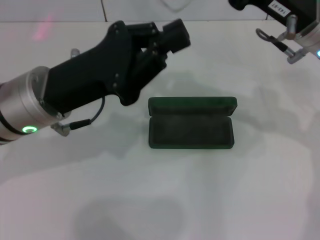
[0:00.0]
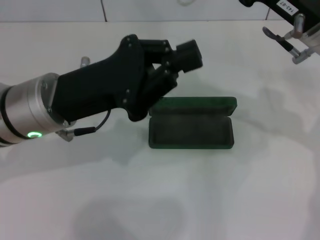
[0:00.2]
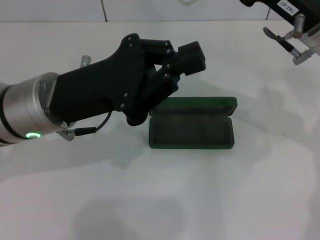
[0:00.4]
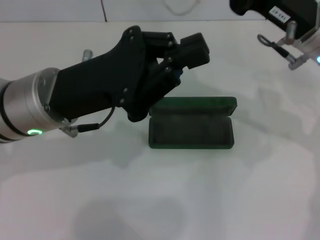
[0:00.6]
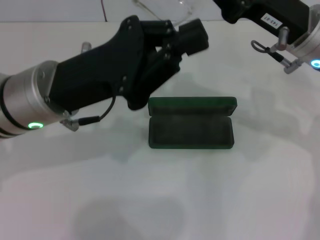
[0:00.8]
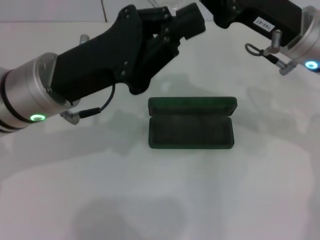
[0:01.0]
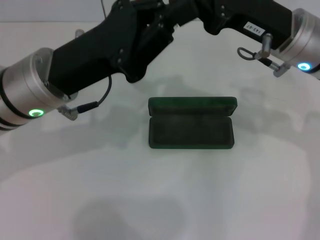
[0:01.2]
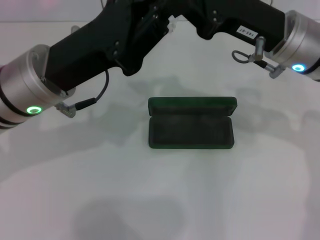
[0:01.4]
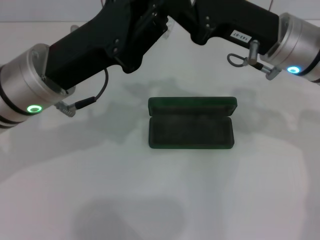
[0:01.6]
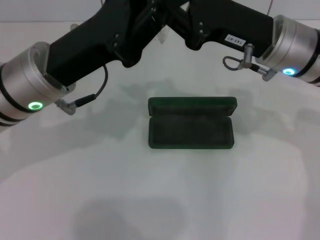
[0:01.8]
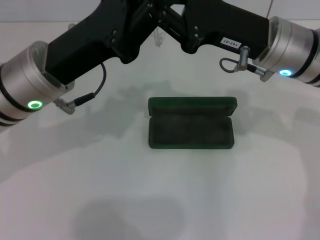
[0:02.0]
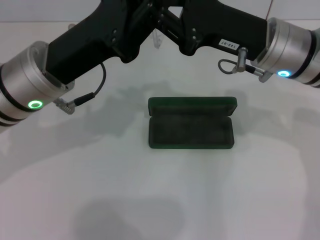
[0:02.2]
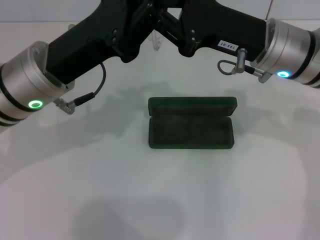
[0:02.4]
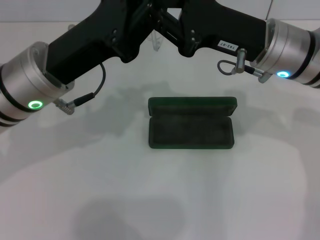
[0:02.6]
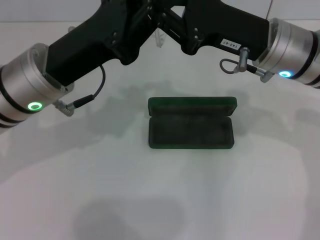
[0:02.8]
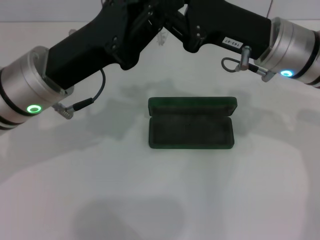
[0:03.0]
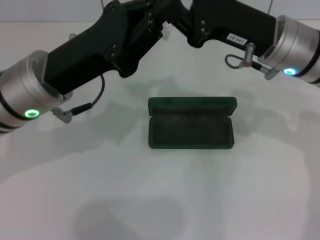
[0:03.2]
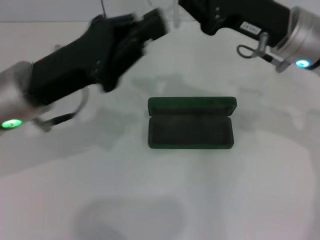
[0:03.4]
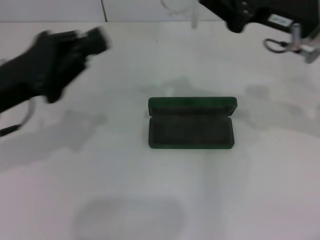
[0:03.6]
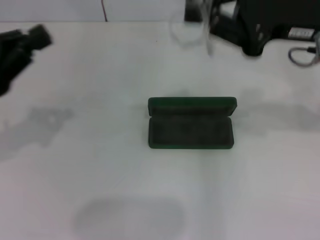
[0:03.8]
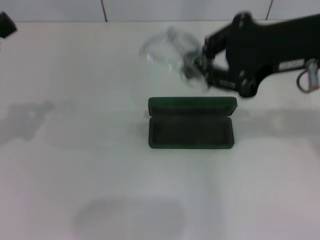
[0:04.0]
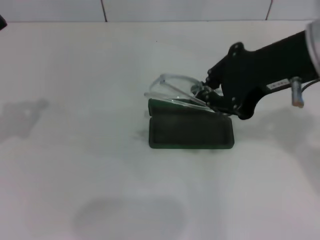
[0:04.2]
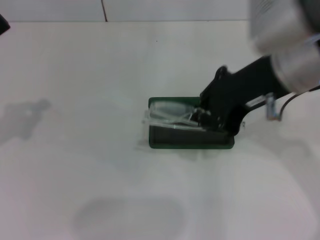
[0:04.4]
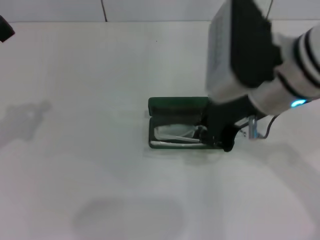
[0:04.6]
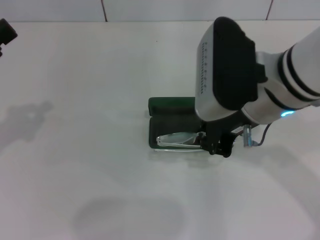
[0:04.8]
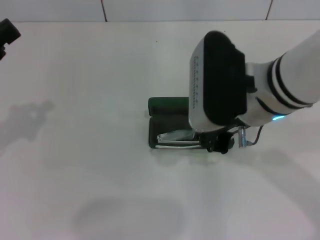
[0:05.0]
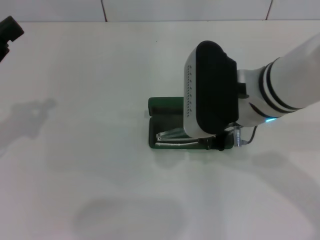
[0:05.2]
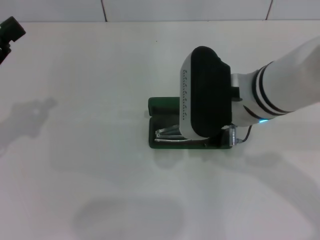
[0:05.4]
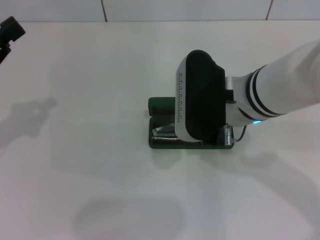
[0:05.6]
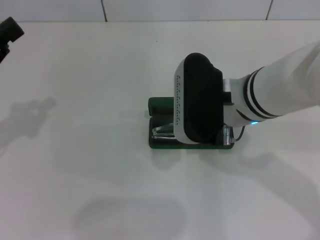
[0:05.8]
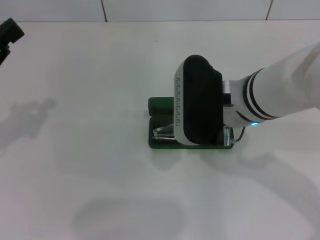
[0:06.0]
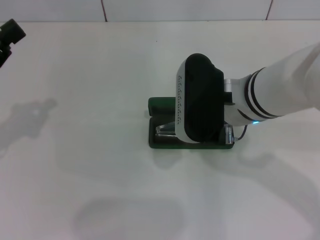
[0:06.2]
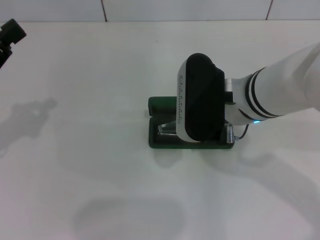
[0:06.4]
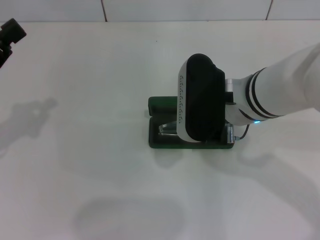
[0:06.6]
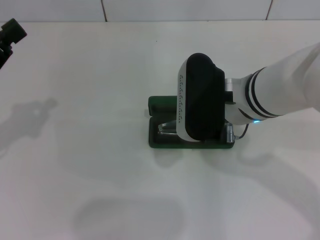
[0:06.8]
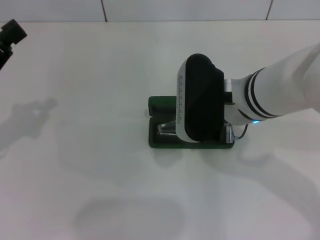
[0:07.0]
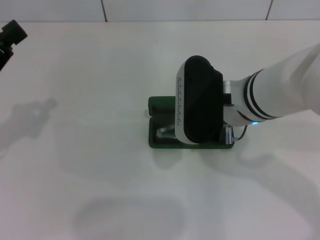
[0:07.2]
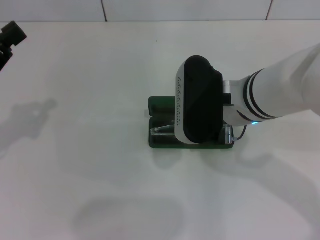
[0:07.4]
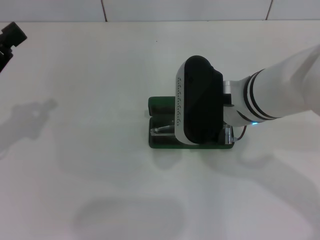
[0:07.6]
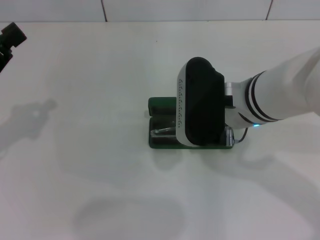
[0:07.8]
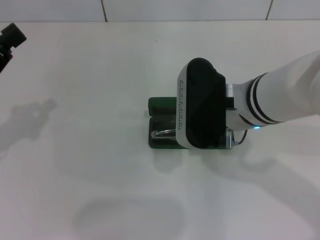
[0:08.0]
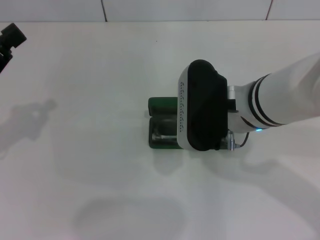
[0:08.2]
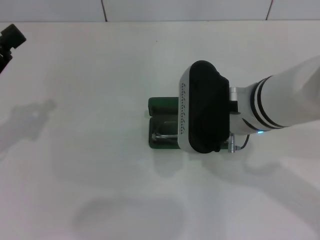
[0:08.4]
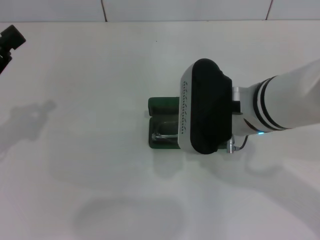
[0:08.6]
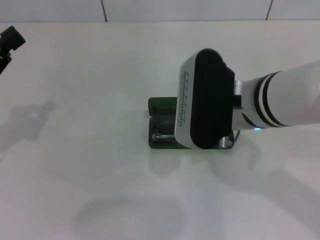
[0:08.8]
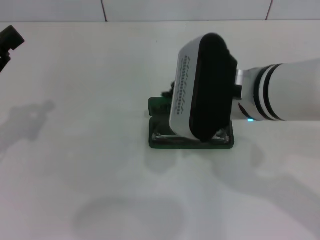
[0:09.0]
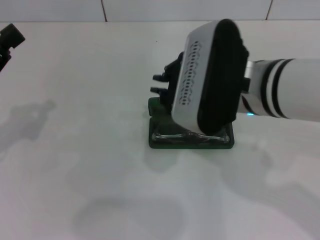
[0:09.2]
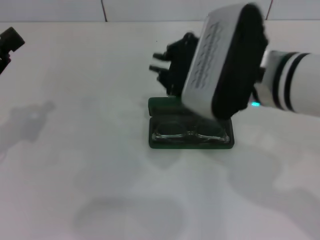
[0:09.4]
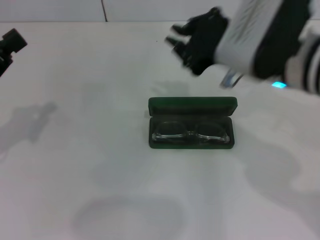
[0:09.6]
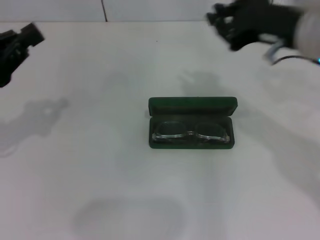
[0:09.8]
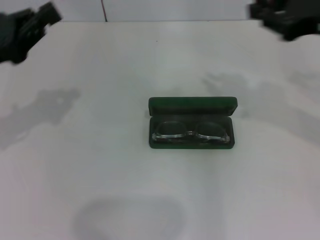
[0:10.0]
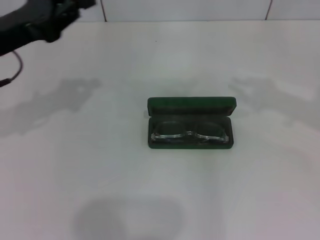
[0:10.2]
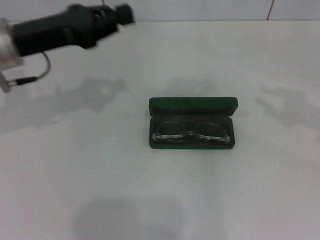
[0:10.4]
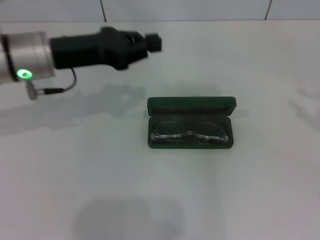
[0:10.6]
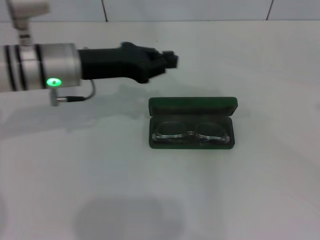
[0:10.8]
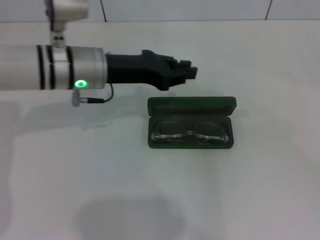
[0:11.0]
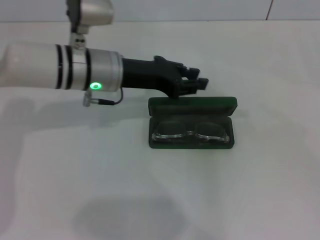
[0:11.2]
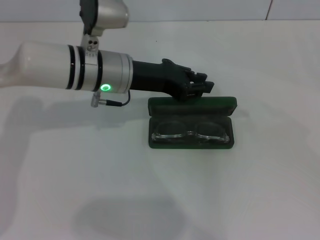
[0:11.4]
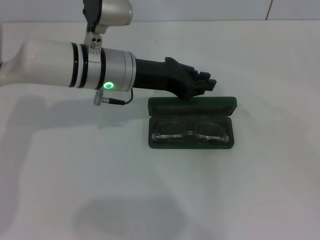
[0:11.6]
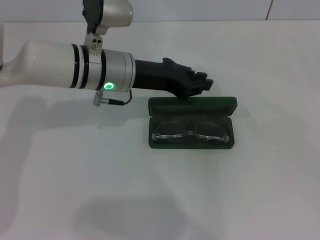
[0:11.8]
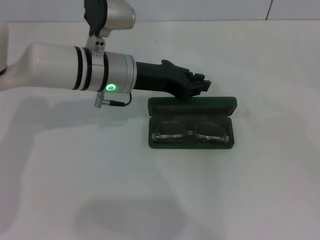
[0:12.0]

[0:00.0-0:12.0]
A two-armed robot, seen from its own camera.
Step, 0.0 to 2.0 s: Fold the frame with your left hand.
Step, 2.2 to 8.4 s: Put the glasses into the case with your right hand.
1.6 to 3.0 s: Both grippers stay about where they are.
3.0 to 4.4 s: The right gripper is displaced upward and backward by about 10 cm, while the left gripper moves to the left, approximately 15 cm.
4.4 to 6.0 s: The right gripper goes about 10 cm downward and to the left.
6.0 to 7.6 s: Both grippers stay about where they are.
7.6 to 9.0 s: There are only small adjustments of the grippers.
9.0 to 10.4 s: The right gripper moves to the right, approximately 30 cm. The left gripper heads forward and to the right, covering about 15 cm.
10.4 to 12.0 s: The left gripper goes some 15 cm to the right and downward. The right gripper heads downward and to the right, covering approximately 10 cm, and opens its fingers.

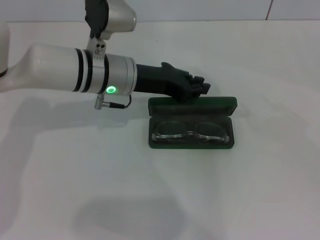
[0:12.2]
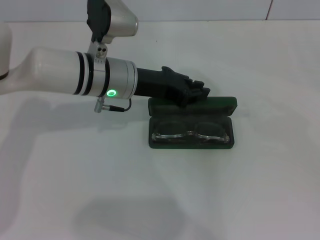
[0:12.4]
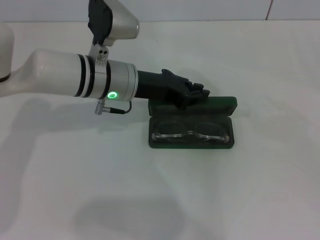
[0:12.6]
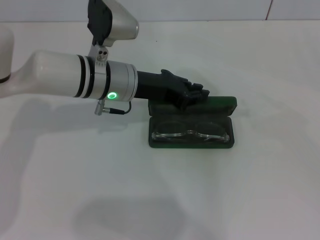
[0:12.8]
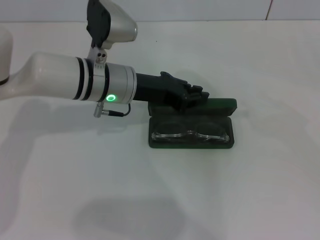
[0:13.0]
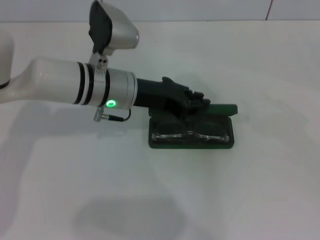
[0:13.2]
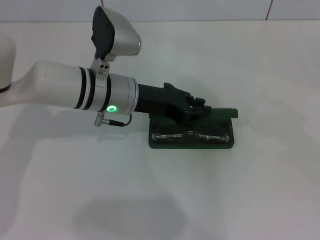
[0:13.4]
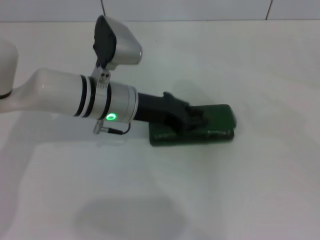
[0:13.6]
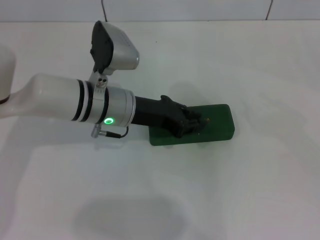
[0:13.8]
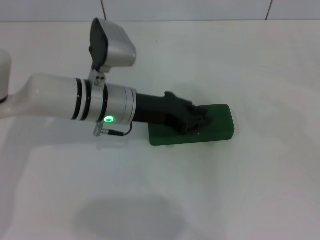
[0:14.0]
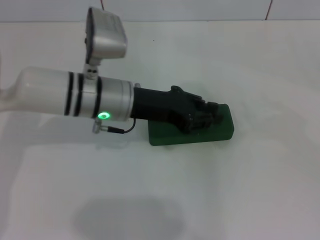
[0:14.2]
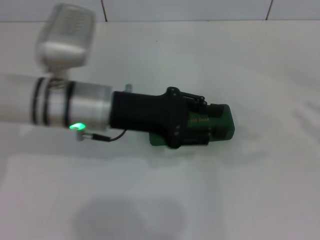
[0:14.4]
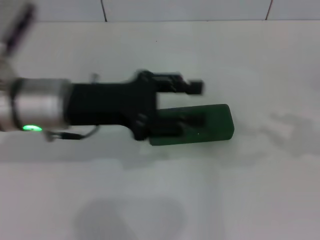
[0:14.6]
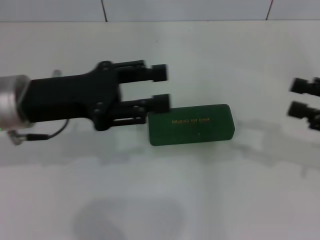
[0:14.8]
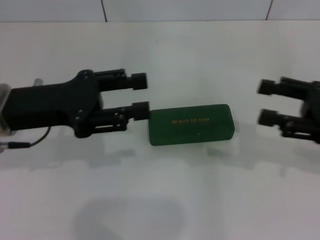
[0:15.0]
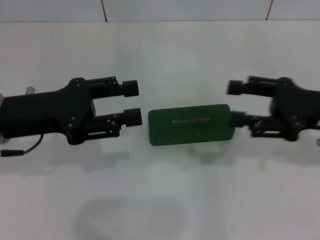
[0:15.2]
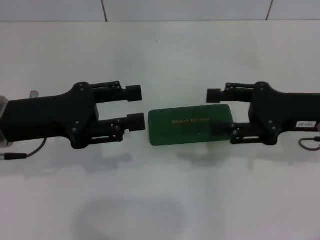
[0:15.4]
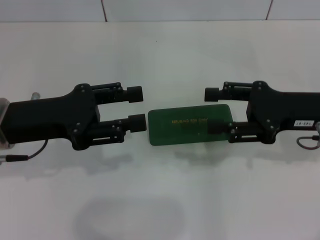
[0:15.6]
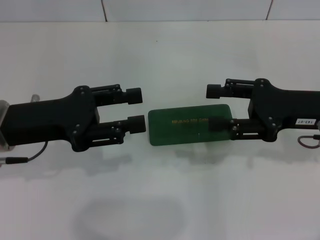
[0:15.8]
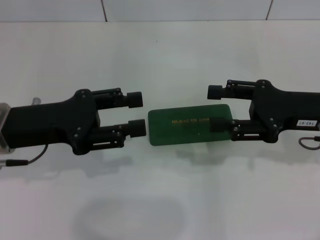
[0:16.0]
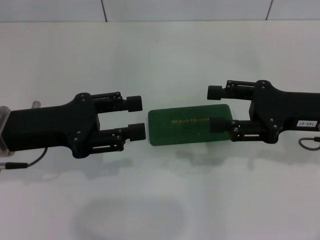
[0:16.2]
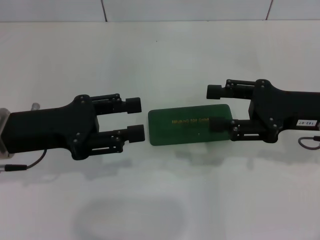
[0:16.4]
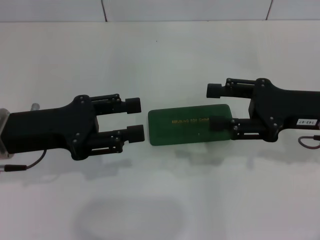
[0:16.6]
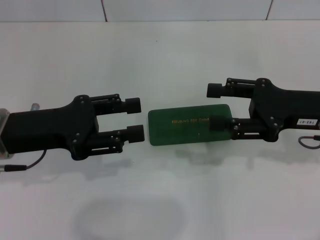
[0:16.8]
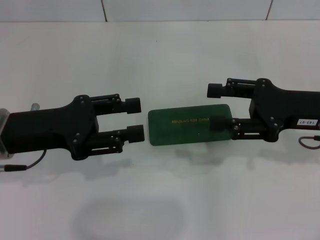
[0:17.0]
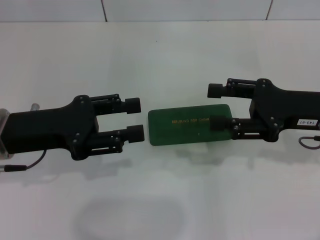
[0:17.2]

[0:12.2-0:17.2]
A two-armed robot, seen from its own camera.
12.2 to 13.8 s: The grippers stay close to where they were, moving slightly.
13.8 to 15.6 s: The left gripper heads to the left, backward and upward, covering some 15 cm, and opens. Meanwhile the right gripper is displaced to the left by roughly 20 cm, and opens.
15.6 to 17.2 s: Both grippers stay about where they are.

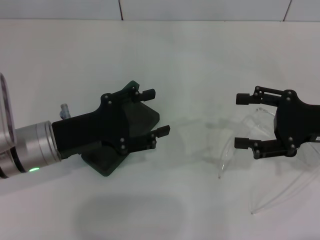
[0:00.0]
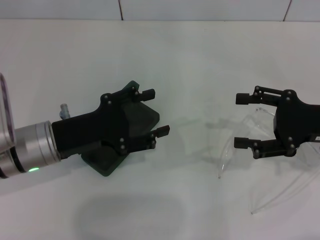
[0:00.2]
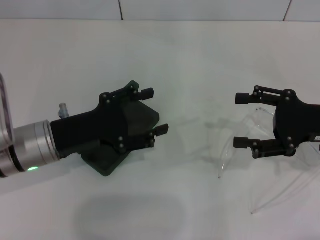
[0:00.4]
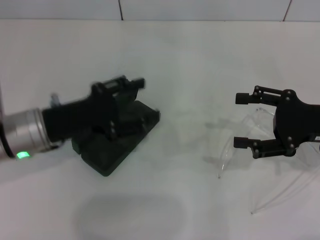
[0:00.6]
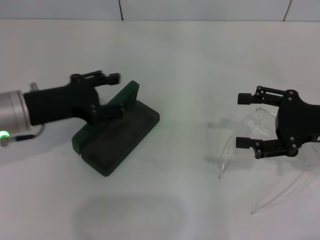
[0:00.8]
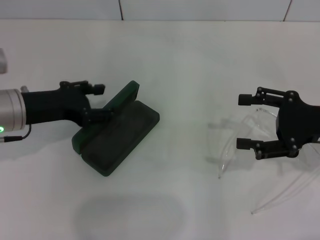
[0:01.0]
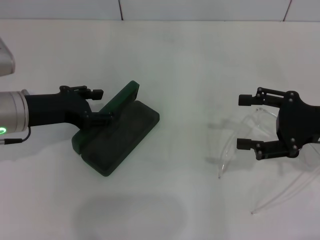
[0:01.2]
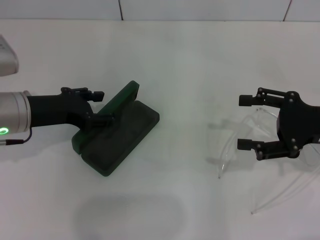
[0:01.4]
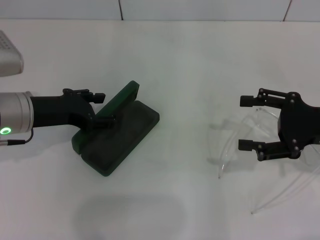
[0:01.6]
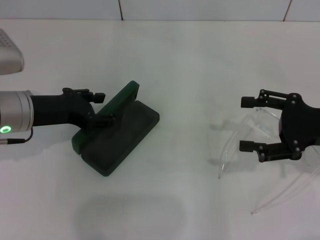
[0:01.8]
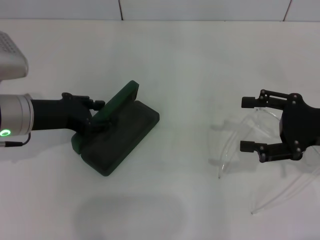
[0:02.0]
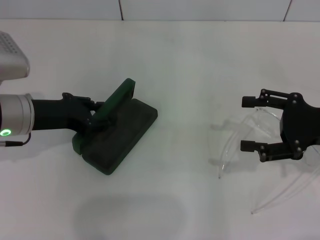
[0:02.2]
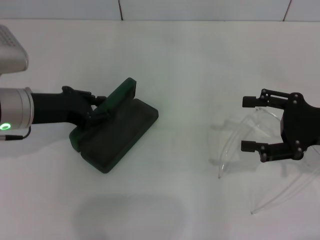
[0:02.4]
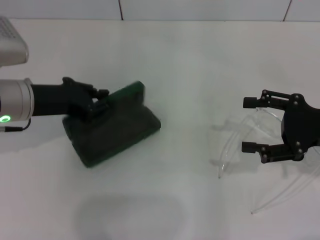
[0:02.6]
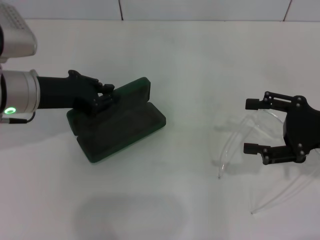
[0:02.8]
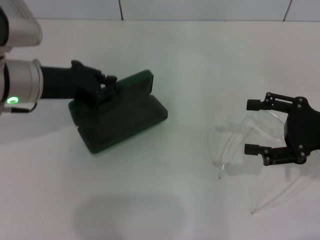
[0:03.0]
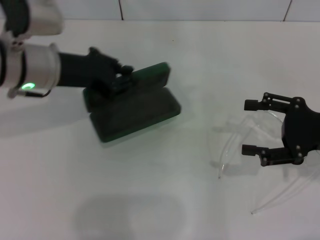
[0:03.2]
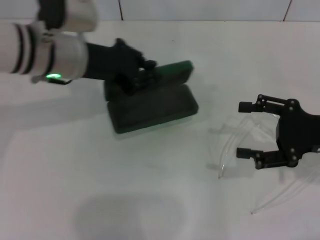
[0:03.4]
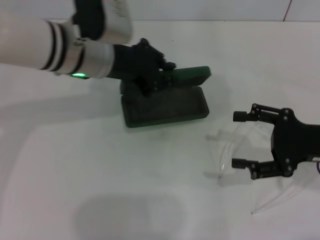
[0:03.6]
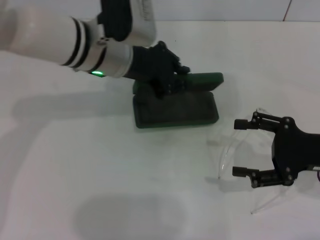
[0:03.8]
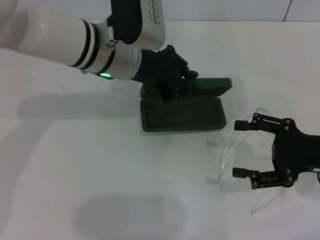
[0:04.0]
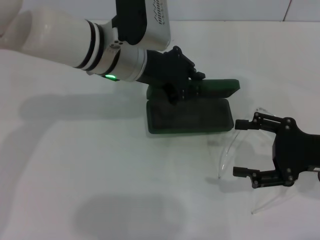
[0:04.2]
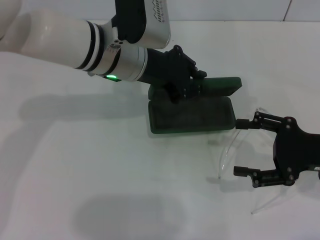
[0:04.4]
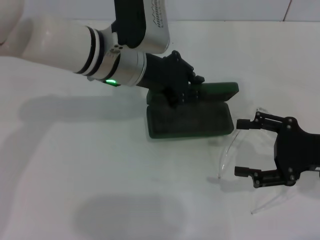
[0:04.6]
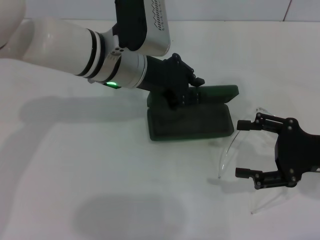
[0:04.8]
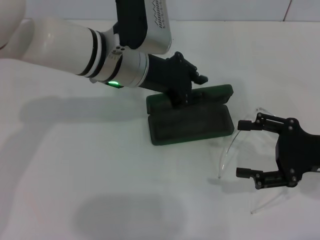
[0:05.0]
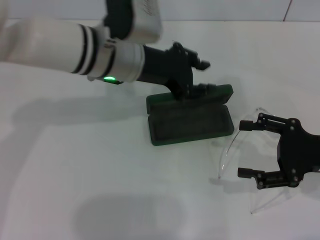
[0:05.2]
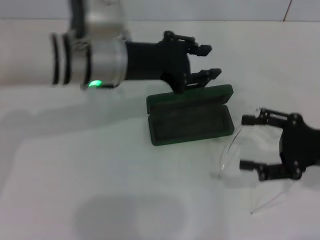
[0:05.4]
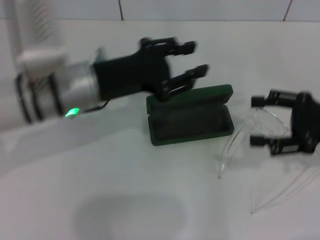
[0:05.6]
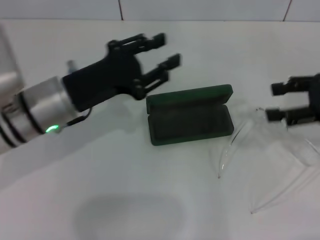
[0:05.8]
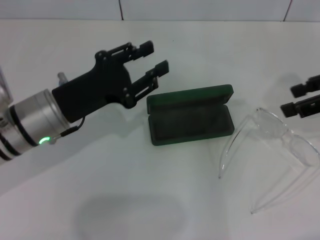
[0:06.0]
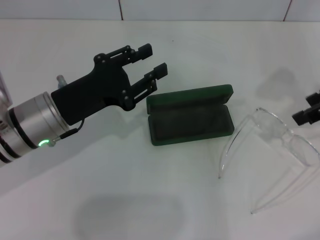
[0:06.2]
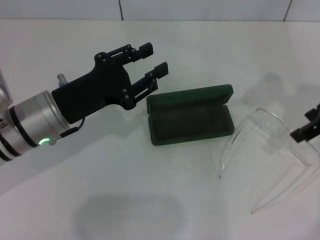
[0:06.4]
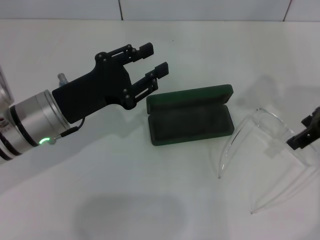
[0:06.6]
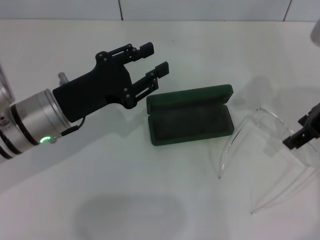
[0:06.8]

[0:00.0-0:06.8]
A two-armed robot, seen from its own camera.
Step, 0.0 to 2.0 s: Grab the glasses case with your left hand.
Step, 2.2 to 4.8 s: Place the glasses case in the center of the table with your left hand.
0.0 to 1.4 s: The left gripper ends up about 5 cm from where it was.
1.4 to 2.8 s: The left gripper closes its fingers.
2.8 to 4.0 s: The left gripper is displaced to the right by some 15 cm.
4.0 to 5.4 s: The left gripper opens up.
5.4 to 6.8 s: The left gripper is displaced to the left, downward and backward by some 10 cm, while the right gripper shifts some 15 cm upward and forward.
